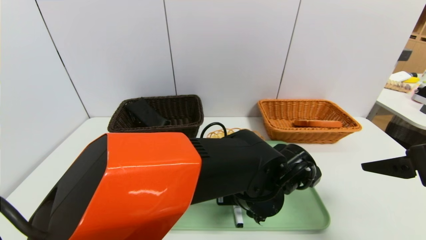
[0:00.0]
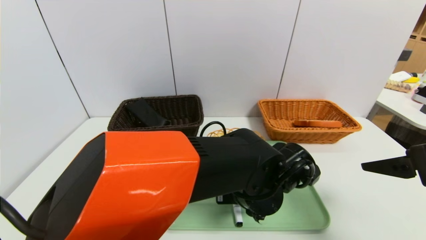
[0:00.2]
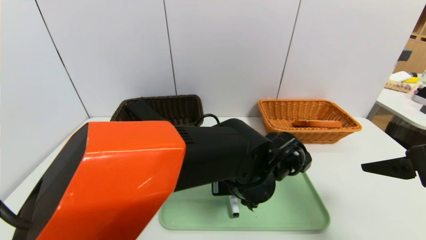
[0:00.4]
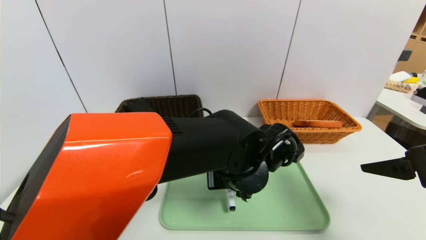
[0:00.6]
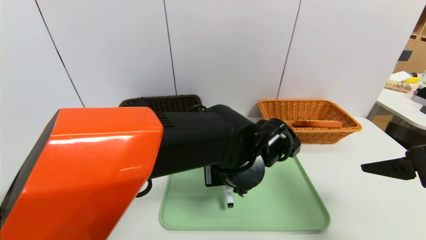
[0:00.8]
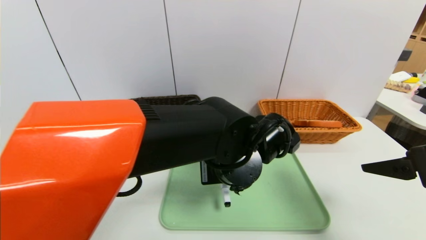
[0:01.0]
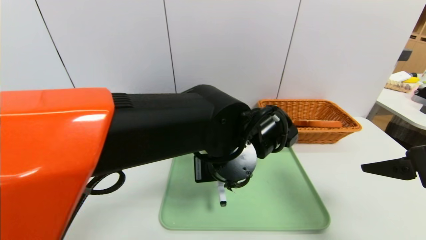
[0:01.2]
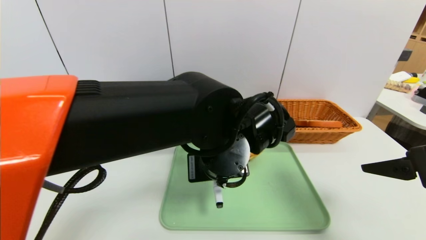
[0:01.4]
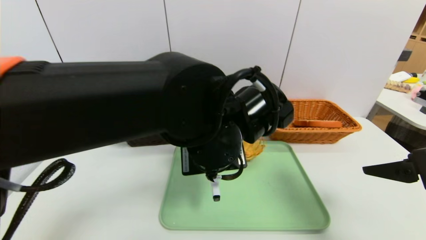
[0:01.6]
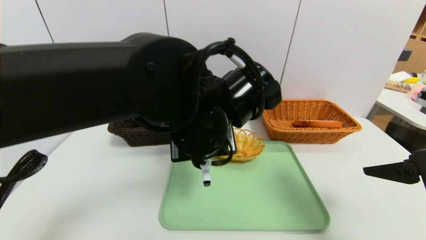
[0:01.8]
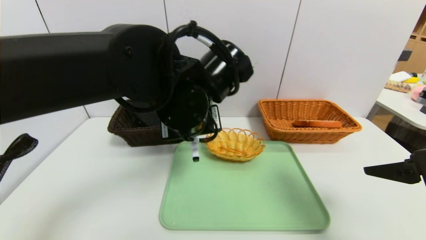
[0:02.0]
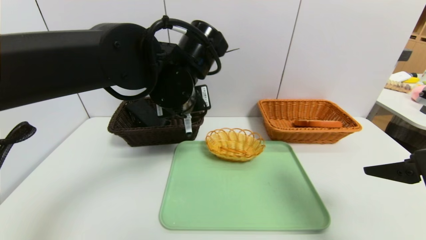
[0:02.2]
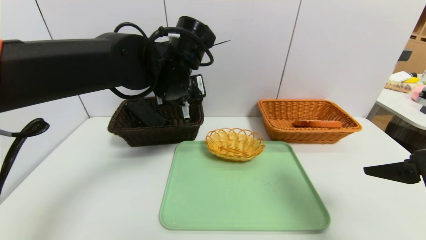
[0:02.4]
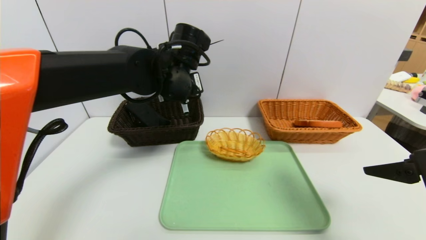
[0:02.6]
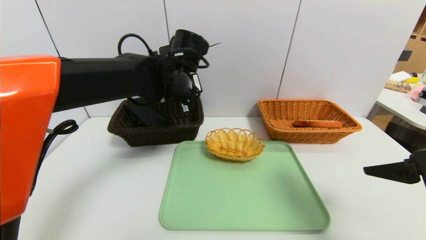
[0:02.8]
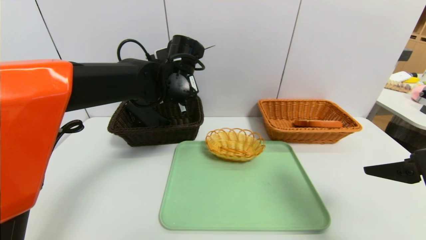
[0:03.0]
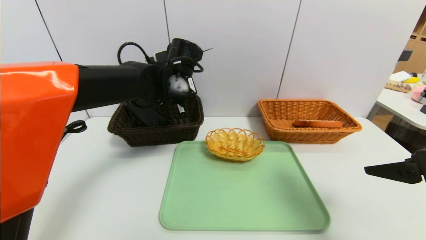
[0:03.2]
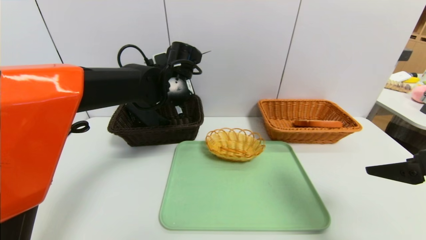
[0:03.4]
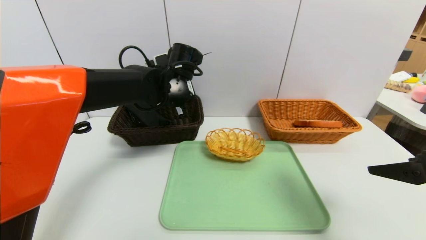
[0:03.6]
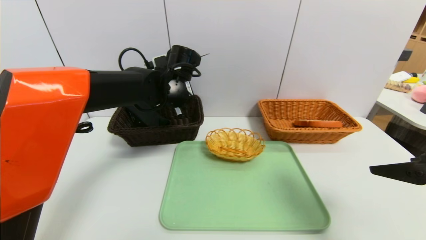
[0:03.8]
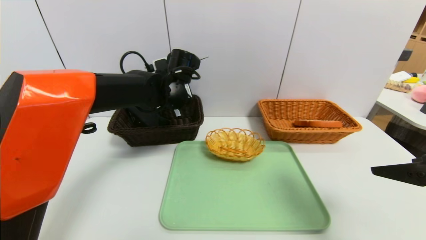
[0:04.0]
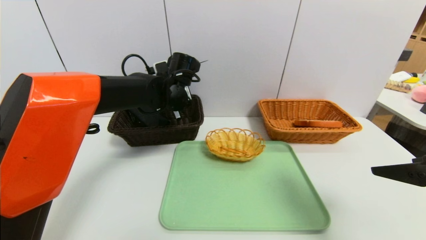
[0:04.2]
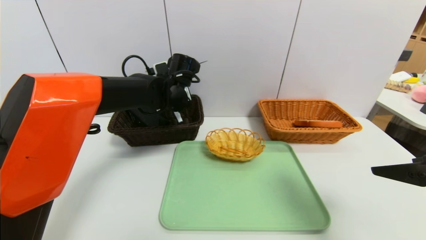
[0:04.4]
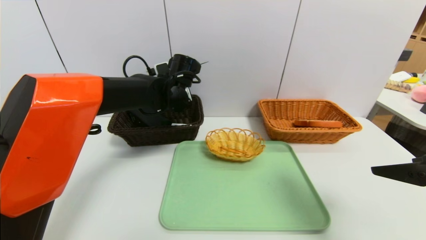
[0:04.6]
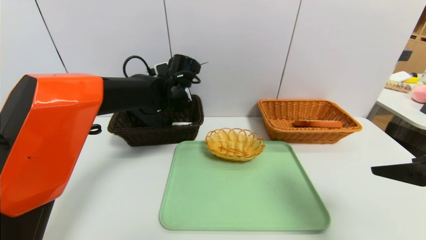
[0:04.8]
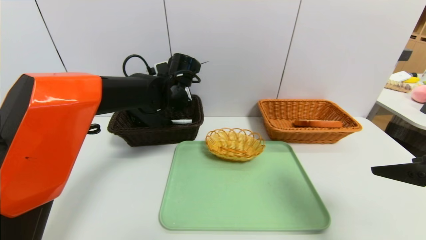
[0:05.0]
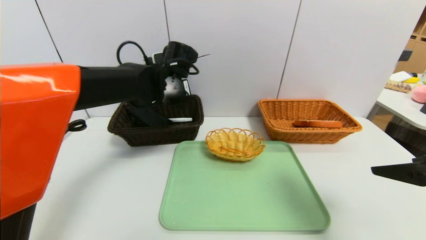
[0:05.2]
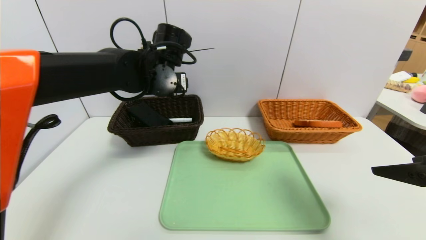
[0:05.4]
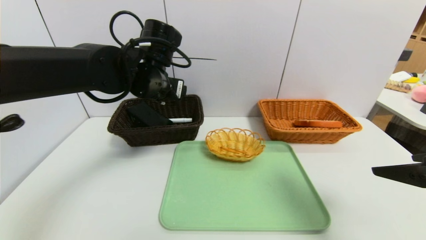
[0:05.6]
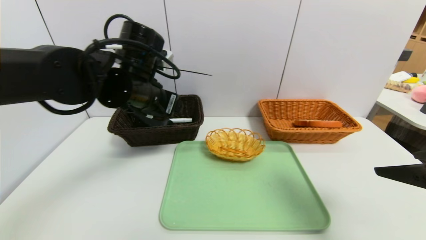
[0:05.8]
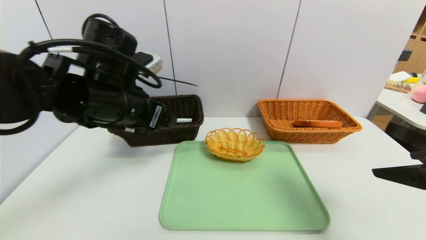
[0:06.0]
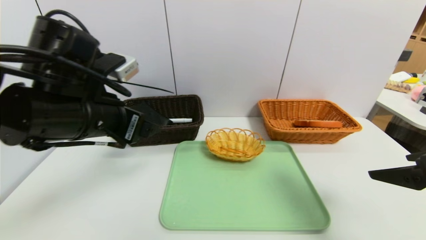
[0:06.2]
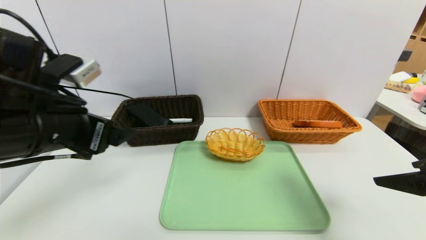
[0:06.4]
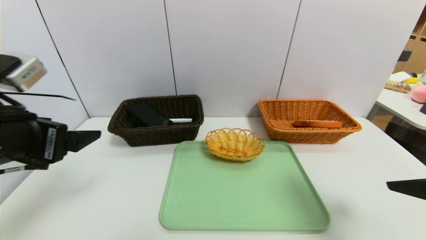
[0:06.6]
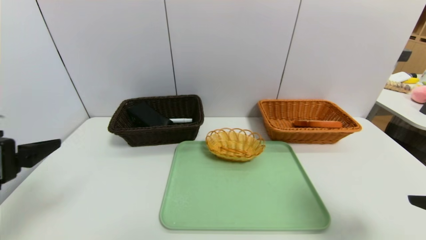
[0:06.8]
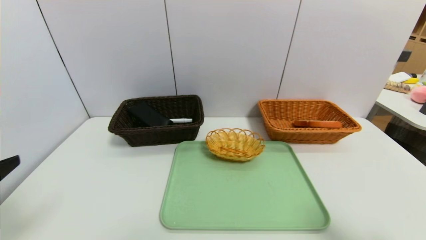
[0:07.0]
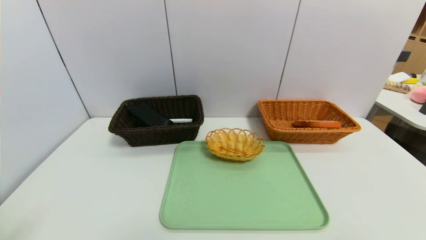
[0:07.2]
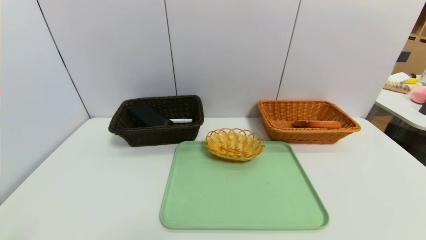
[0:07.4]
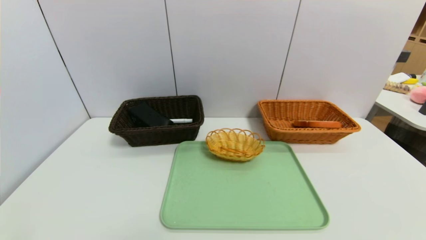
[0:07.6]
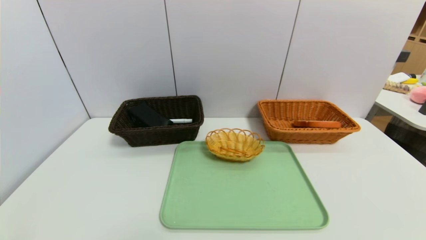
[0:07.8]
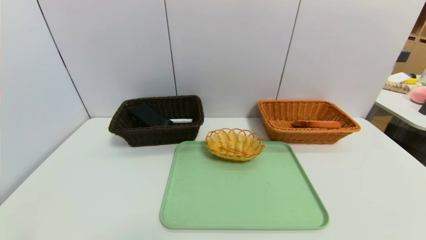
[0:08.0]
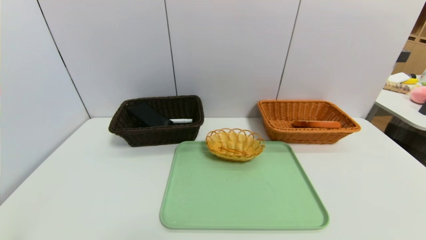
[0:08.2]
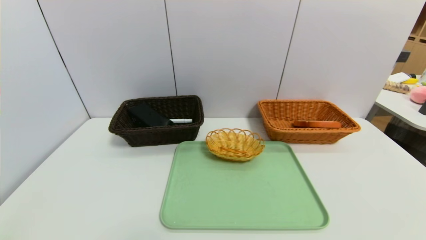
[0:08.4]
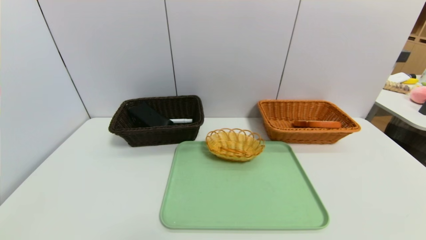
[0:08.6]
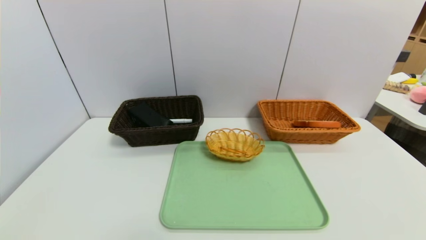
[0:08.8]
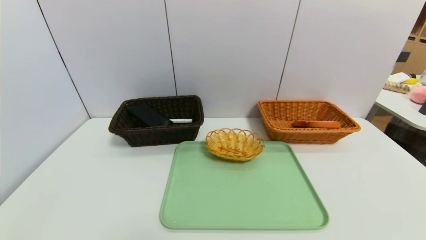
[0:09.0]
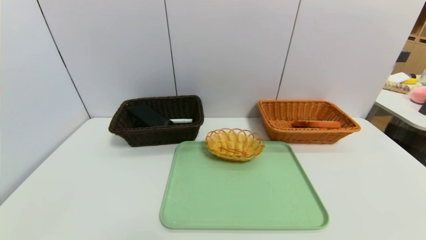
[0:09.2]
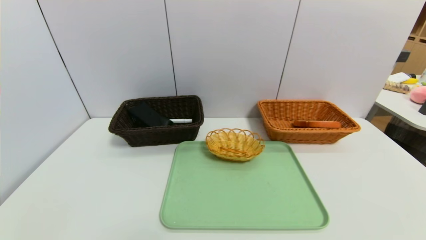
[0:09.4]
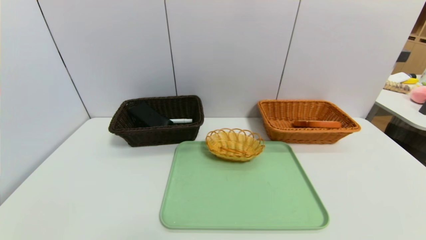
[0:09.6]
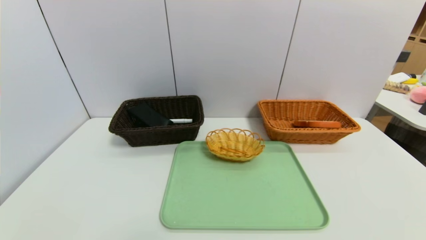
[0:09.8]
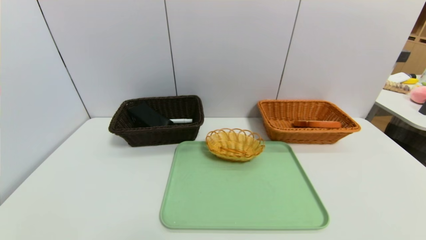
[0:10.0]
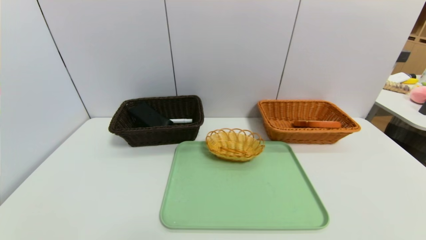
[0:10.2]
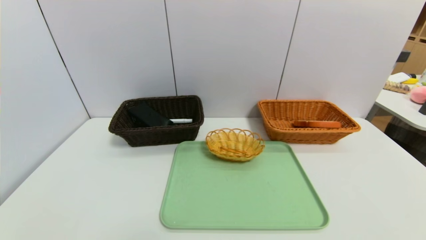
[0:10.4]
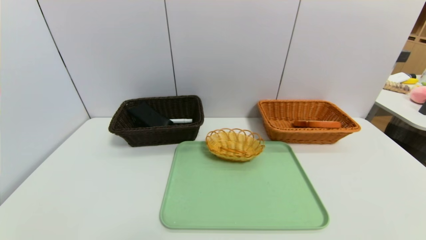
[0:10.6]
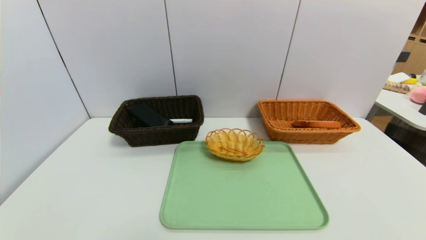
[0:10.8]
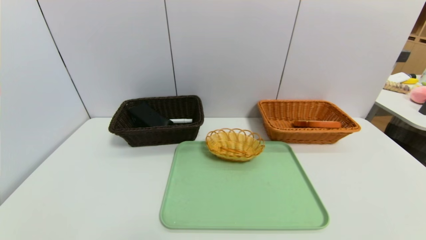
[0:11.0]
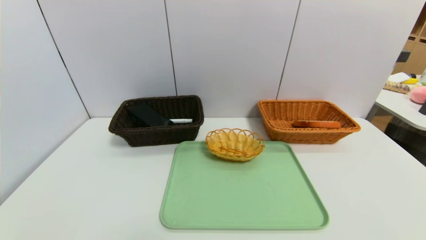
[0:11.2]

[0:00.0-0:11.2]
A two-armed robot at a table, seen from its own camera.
Task of the whole recording: place the food in the right basket with the right gripper, and place the non food items in the left basket with the left gripper.
Step, 0:00.0 to 0:06.2: Grasp the black marker and put it in the left basket.
0:00.0 to 0:01.6: The left gripper travels upward and to the left by approximately 10 cm.
0:01.6 to 0:03.2: The left gripper is displaced forward and to the left by roughly 20 cm.
0:03.2 to 0:04.8: The left gripper opens its fingers.
0:04.8 to 0:06.4: The left gripper moves backward and to the left, roughly 25 cm.
0:06.4 to 0:08.0: The right gripper shifts approximately 20 cm backward and downward; the left gripper is displaced backward, downward and to the left by approximately 25 cm.
